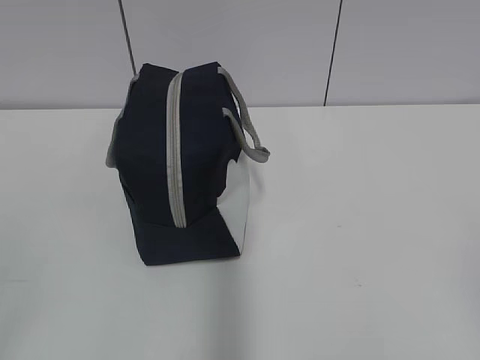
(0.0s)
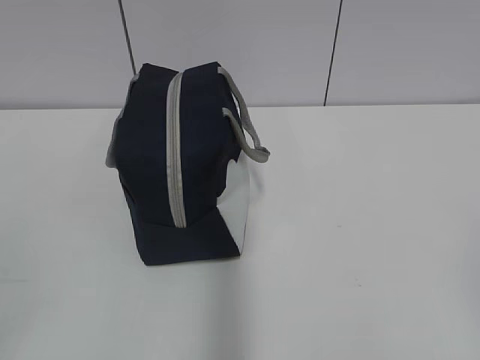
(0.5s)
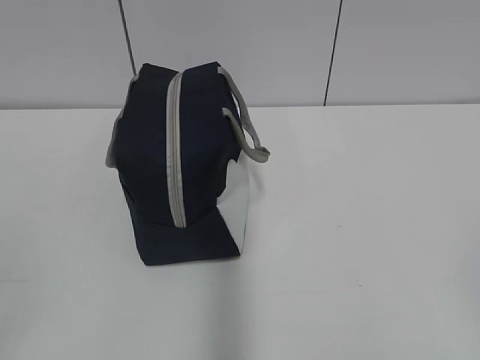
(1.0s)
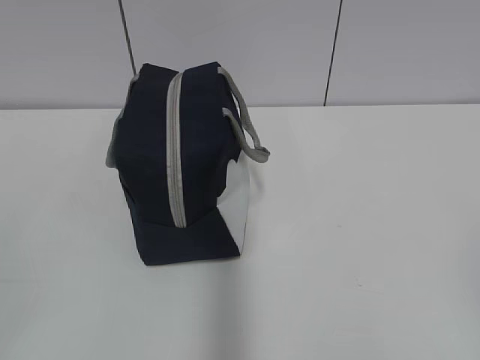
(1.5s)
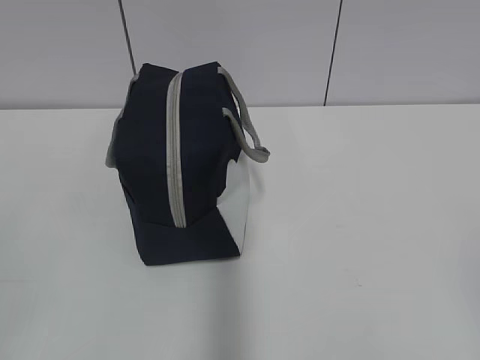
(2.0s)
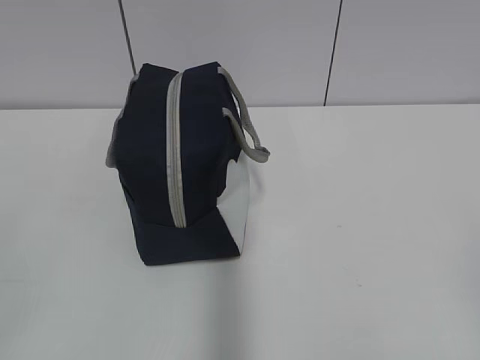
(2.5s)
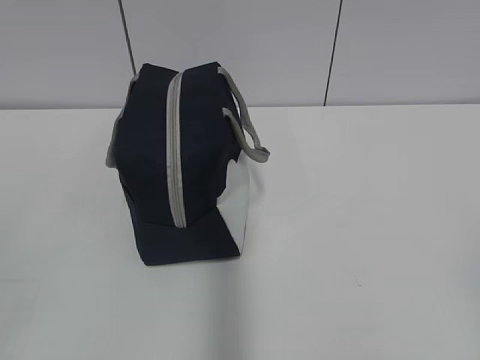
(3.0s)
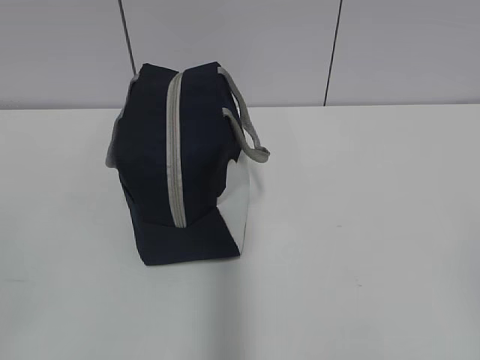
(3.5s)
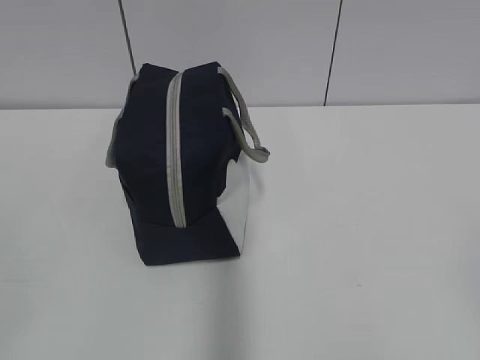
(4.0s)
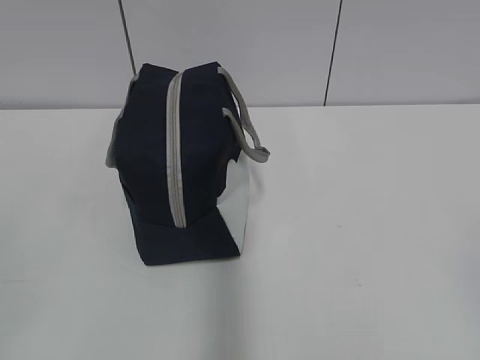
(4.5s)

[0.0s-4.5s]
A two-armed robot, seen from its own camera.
2.0s to 4.5s: The two grippers keep their place.
